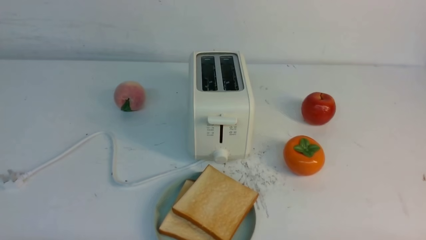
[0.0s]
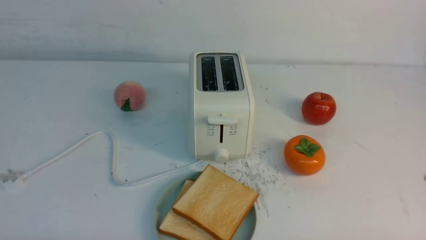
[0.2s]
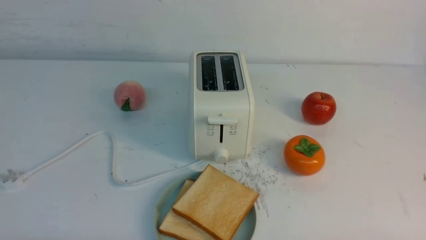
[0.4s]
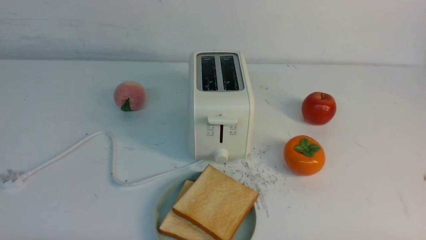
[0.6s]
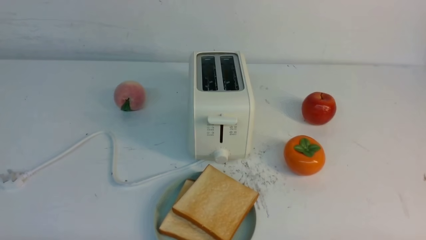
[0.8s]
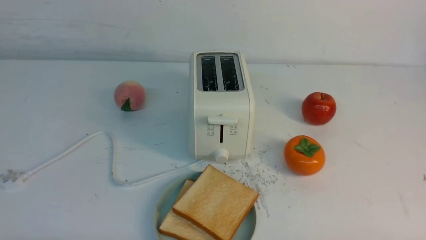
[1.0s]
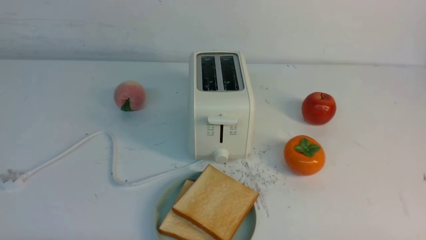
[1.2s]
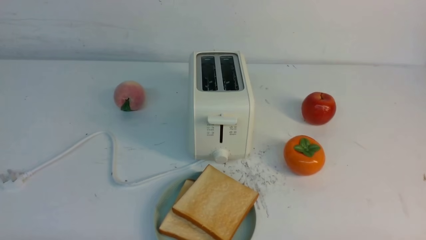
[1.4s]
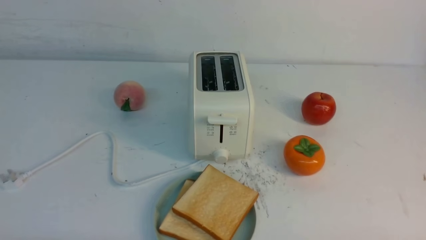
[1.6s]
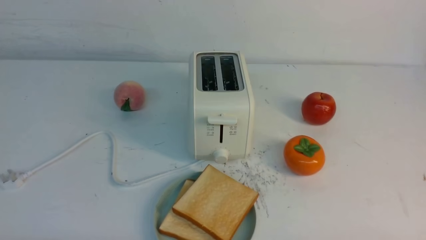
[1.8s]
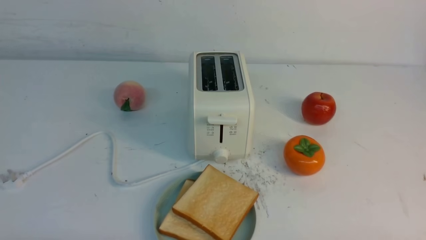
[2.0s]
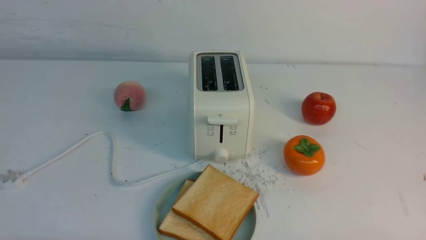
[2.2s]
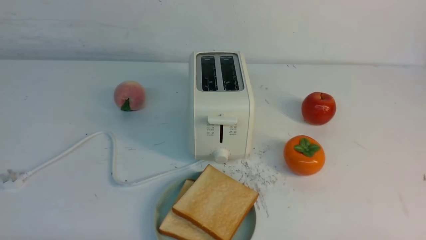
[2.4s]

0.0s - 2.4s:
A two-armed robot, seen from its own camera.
Task of the whole recording: take toasted bread from bread machine on white table place on plate.
1.2s - 2.4s: The two grippers keep their place.

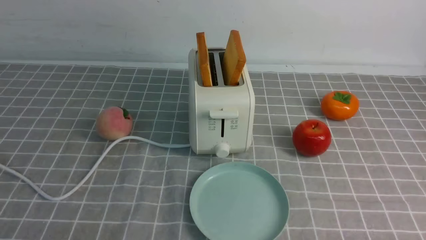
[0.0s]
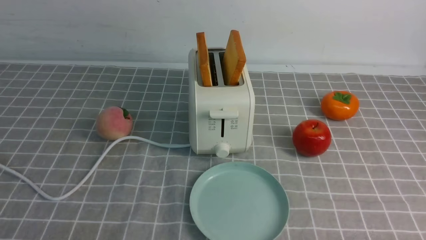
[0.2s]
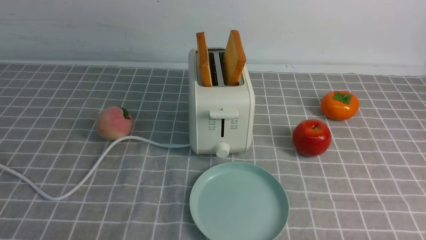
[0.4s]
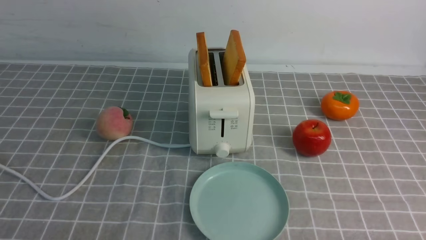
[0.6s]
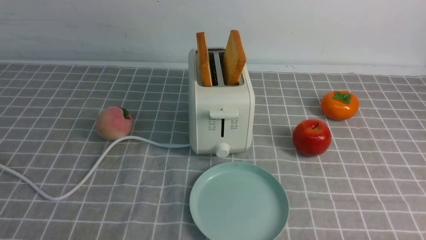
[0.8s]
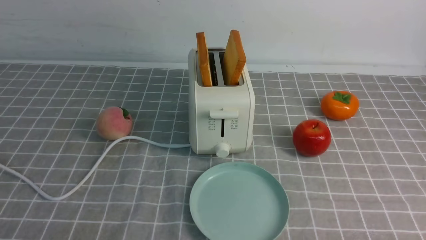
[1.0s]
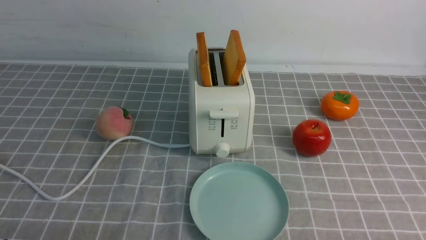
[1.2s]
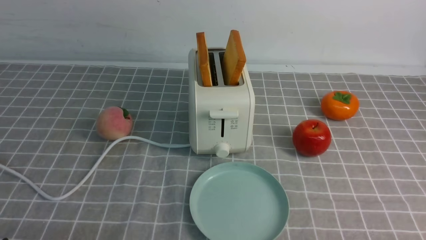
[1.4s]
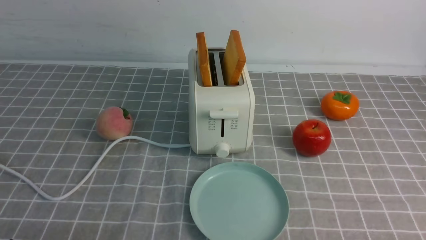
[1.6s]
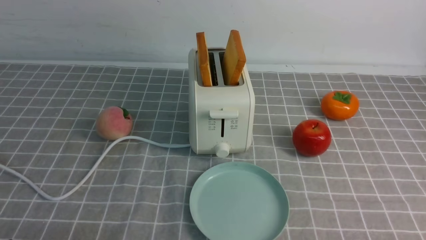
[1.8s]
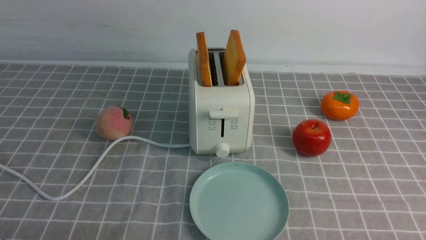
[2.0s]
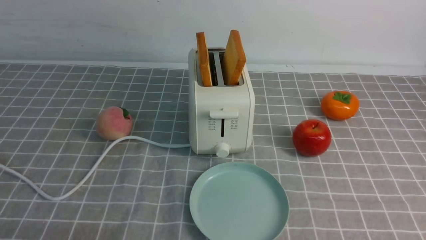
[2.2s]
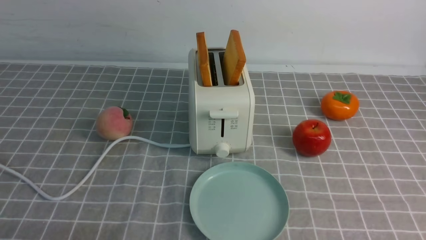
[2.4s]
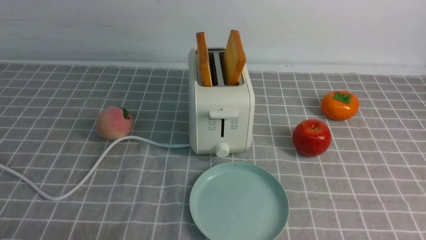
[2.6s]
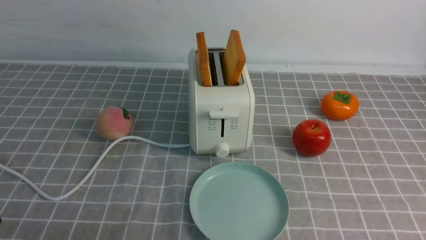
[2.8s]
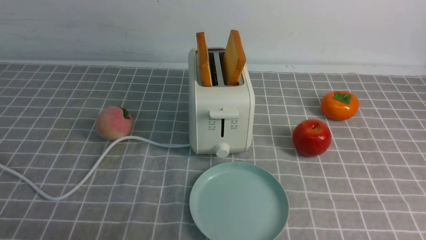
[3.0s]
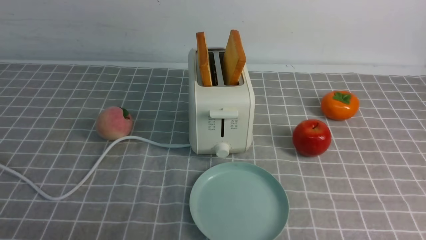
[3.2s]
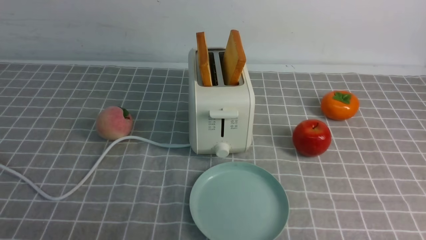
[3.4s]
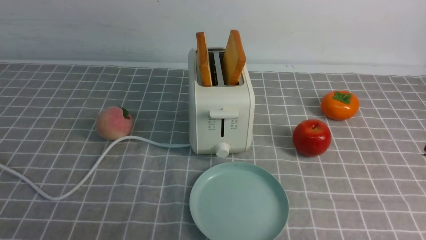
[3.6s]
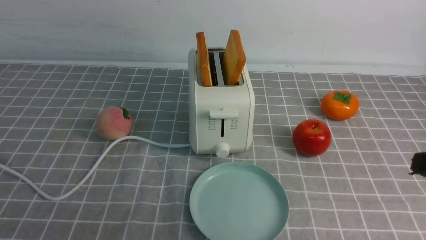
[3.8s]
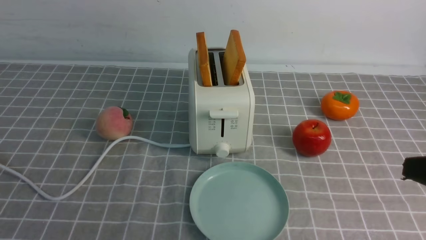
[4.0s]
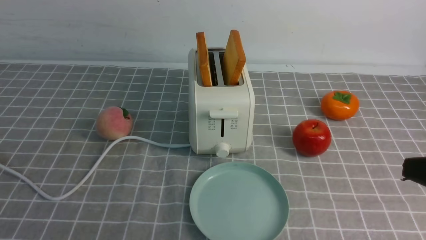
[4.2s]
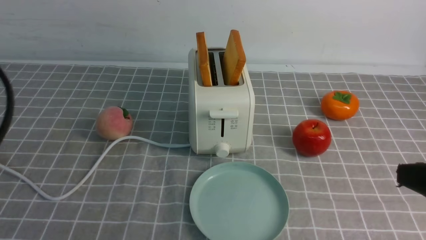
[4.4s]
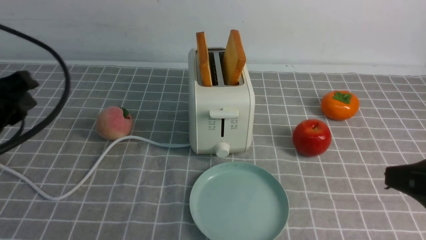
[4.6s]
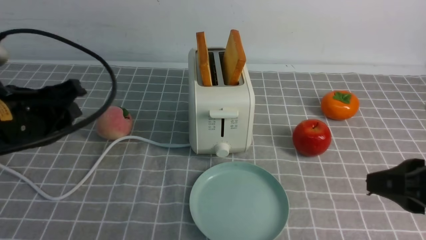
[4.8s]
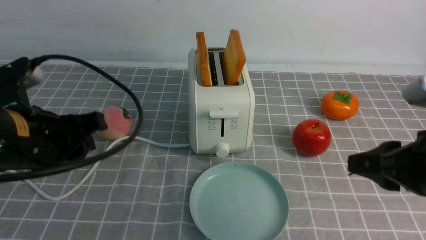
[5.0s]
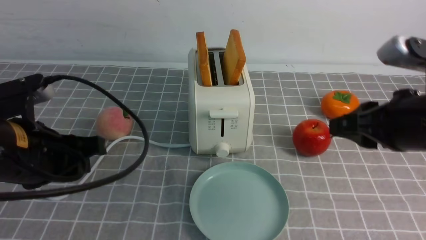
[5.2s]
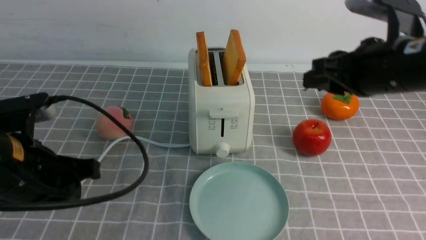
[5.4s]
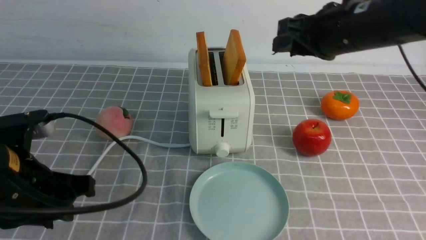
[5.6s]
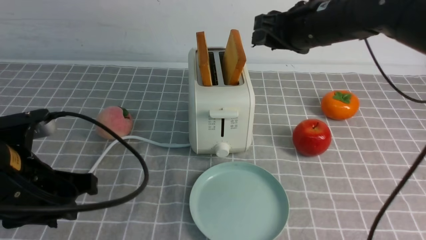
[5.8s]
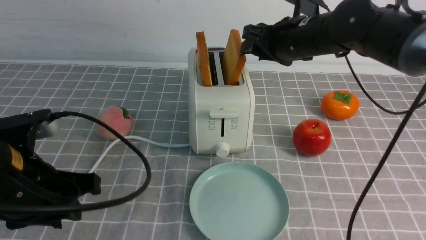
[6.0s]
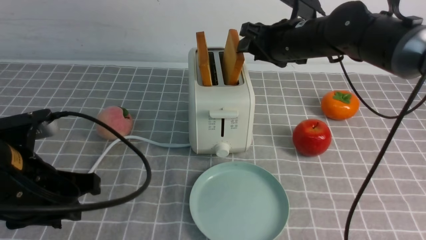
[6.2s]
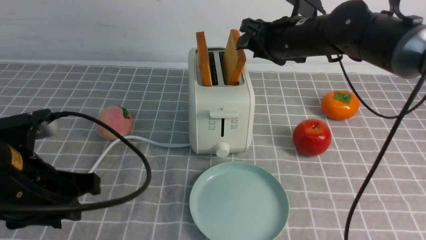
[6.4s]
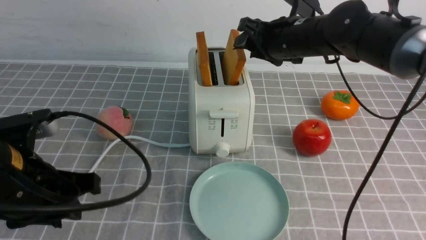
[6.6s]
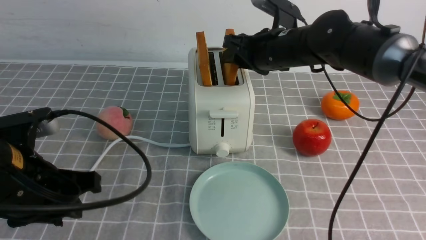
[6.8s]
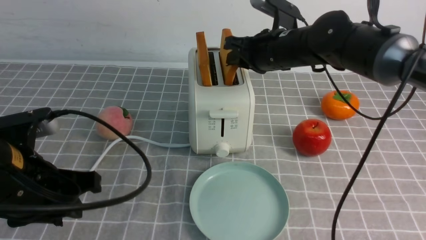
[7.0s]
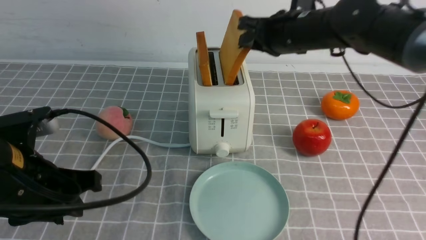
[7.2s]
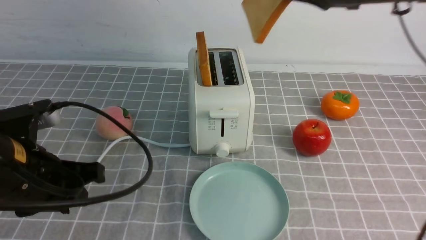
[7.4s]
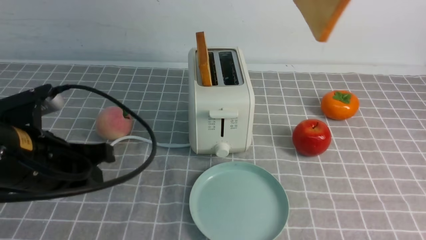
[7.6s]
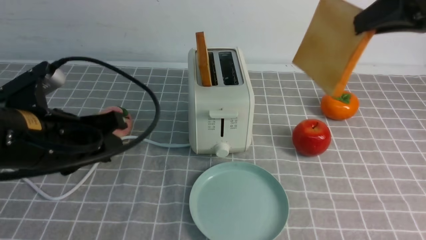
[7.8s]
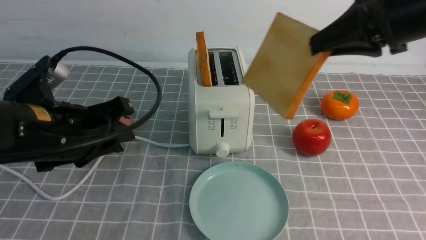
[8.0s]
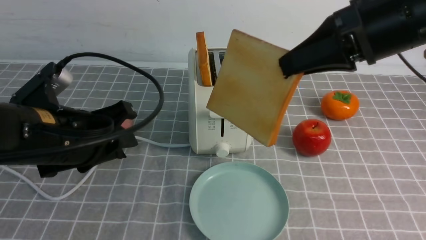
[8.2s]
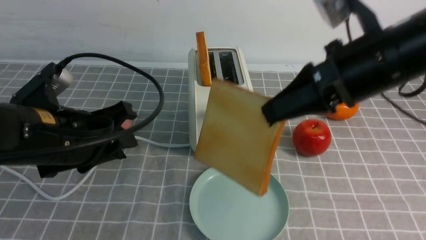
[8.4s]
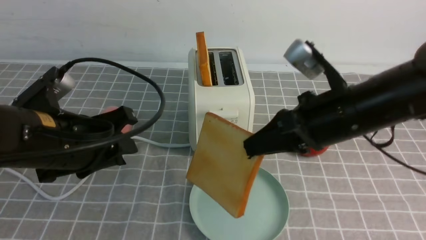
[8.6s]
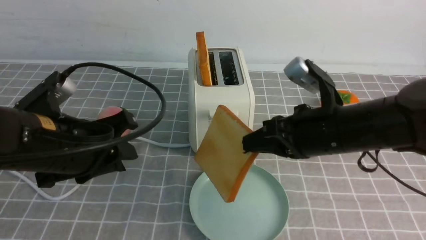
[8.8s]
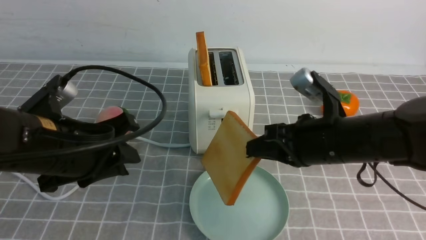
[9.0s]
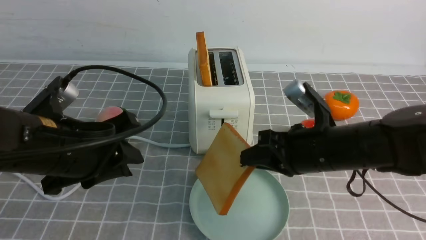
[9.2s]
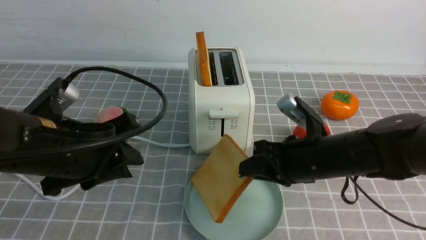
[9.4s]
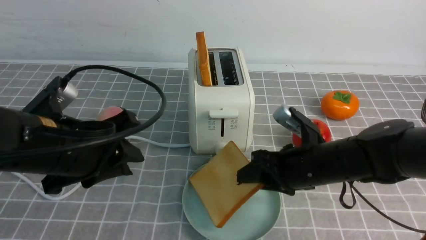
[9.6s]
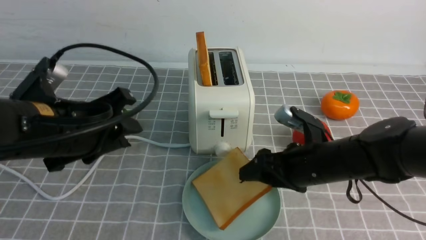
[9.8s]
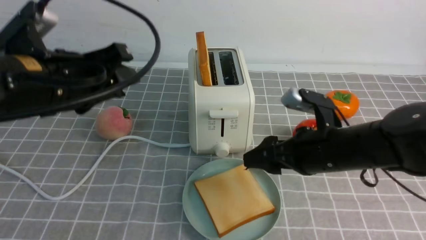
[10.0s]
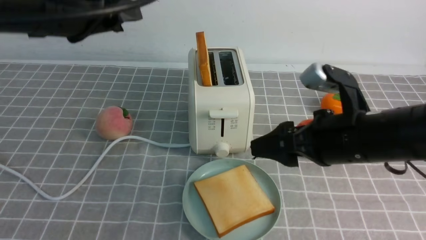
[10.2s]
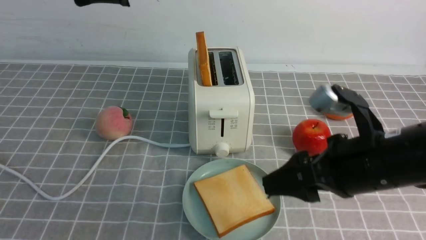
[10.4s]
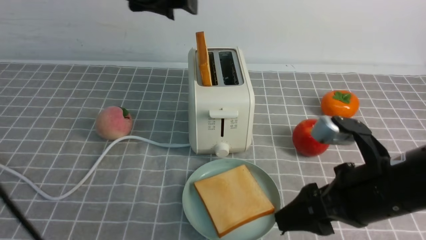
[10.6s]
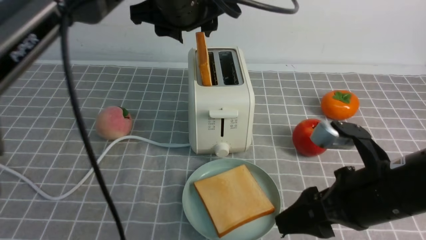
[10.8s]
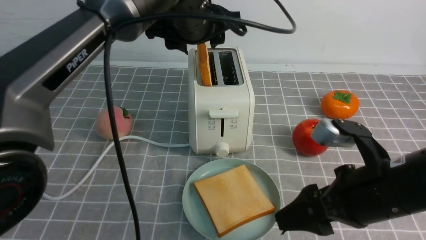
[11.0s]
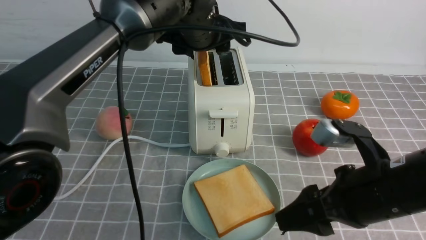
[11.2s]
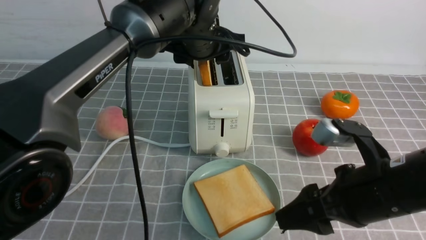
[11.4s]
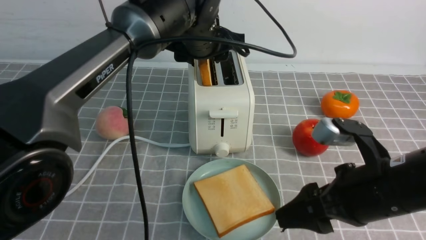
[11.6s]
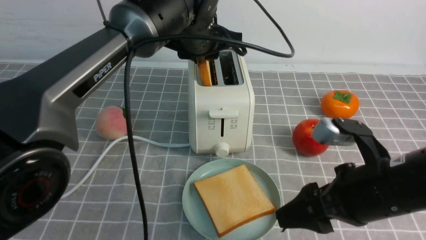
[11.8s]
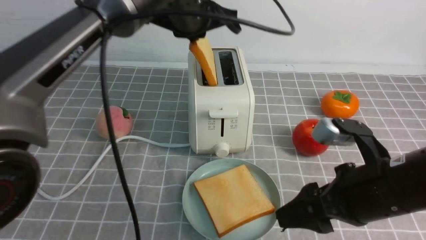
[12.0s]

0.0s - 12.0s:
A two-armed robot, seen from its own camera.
Task of the whole recording: take toasted bread from bread machine on grey coffee table place on plate.
Step, 0.0s - 7.4s: use the right arm to take out a slice of bread.
Step, 7.6s - 10.0s: use the right arm to put a slice of bread into the plate.
3.0s - 4.4s: The right gripper moves roughly 5 cm.
4.4s - 6.0s: The left gripper goes about 10 cm downward and to the right; the right gripper moves forward, about 30 cm.
6.0s - 7.6s: The right gripper shifts some 20 cm upward, to the right and backward, and closes its fingers.
7.6s - 9.0s: The right gripper heads downward and to the left, covering about 20 cm.
9.0s - 10.4s: The right gripper moves backward, roughly 5 cm, reaches approximately 5 cm downward, then returns, and opens up, while the left gripper moves upward and forward, roughly 20 cm.
10.4s - 12.0s: The left gripper heads forward and to the right, covering roughly 10 cm, and closes up.

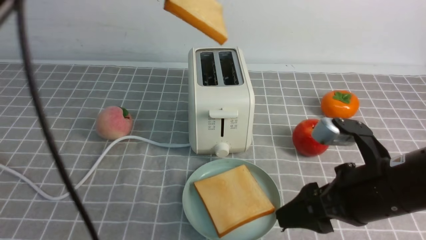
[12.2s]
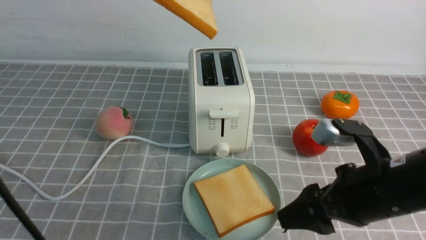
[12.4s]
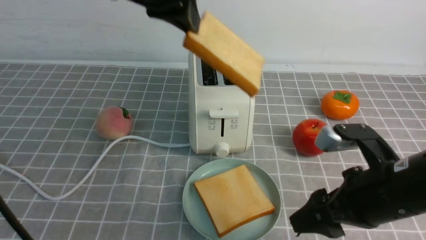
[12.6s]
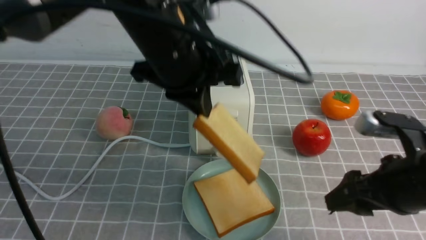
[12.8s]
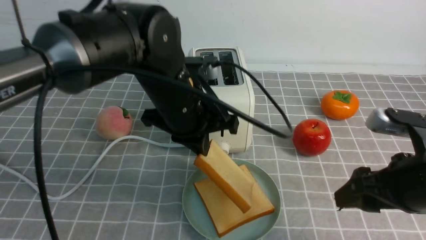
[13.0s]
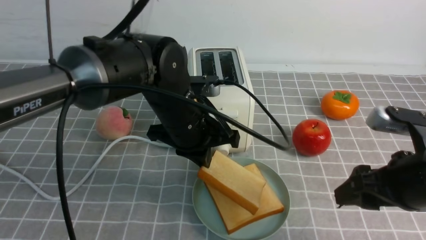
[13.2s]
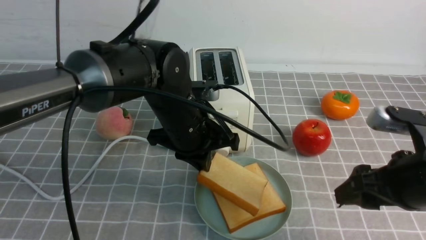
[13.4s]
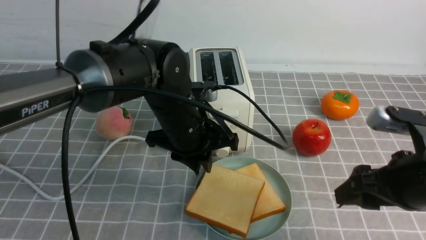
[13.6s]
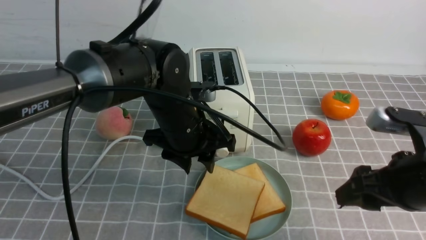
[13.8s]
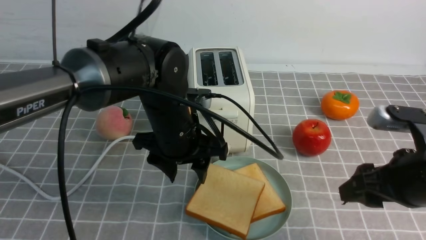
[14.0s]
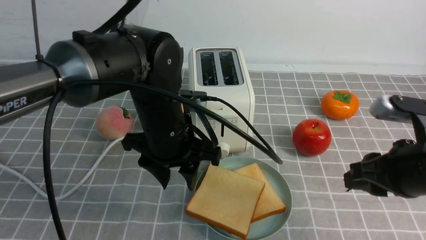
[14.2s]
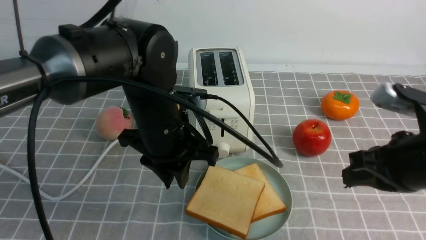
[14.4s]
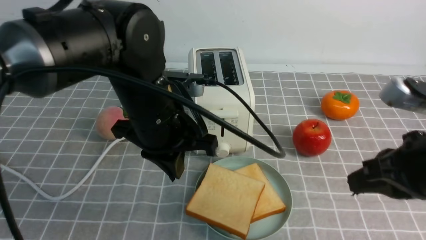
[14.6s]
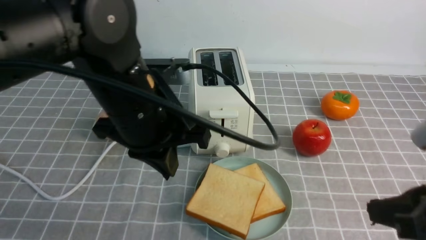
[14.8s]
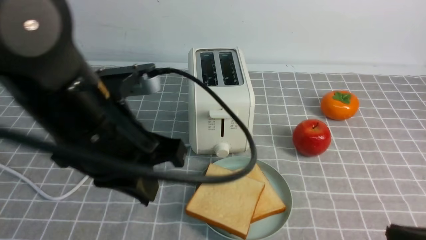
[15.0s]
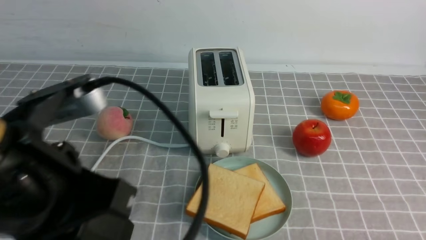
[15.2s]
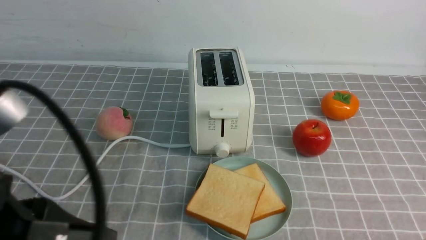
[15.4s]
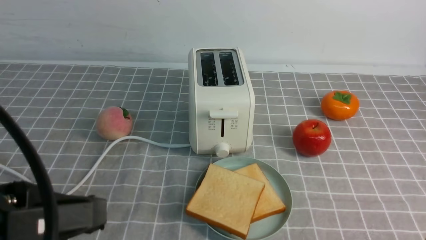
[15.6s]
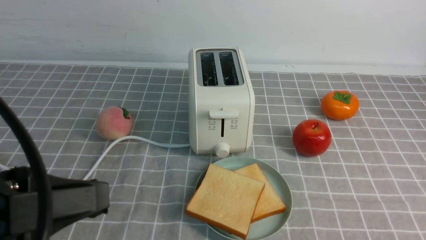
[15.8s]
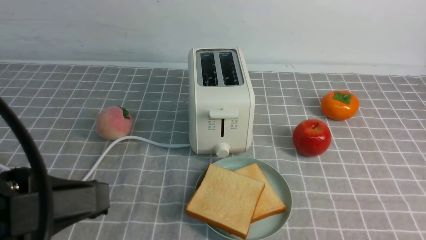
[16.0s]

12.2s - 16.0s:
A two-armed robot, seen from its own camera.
Task of the whole recording: take toasted bread from bread machine on grey coffee table place on plate.
Step, 12.4s - 13.8s: use the left arm to put a slice of bread into the empty plate.
12.2s - 13.4s: The right gripper shifts some 5 cm to the right. The left gripper moves downward, some 20 cm.
13.4s - 14.8s: The left gripper shifts roughly 10 cm backward and upward, and opens and closes again; the right gripper goes some 10 cm backward, and closes up.
14.8s - 16.0s: The left gripper goes some 20 cm backward and to the left. The right gripper goes about 10 cm backward.
